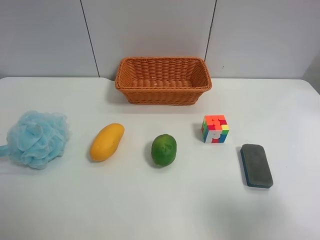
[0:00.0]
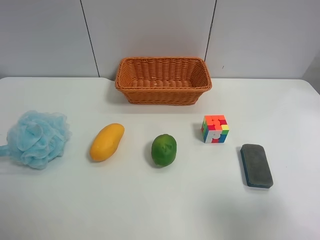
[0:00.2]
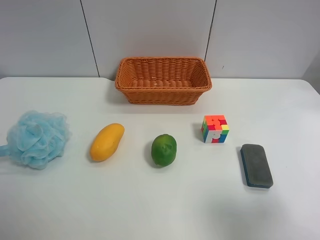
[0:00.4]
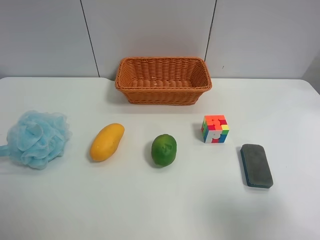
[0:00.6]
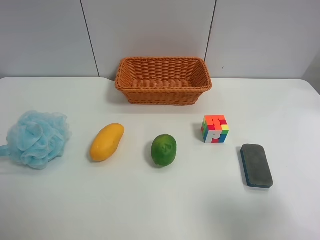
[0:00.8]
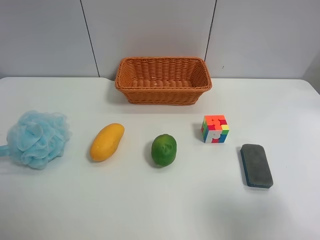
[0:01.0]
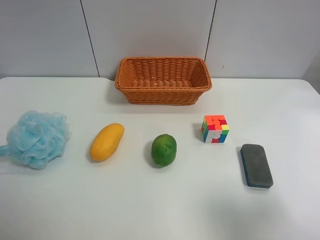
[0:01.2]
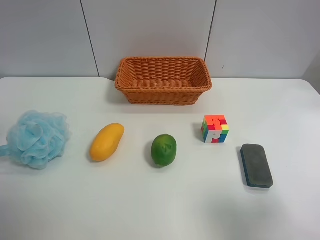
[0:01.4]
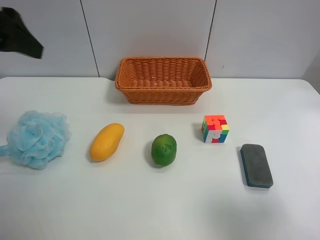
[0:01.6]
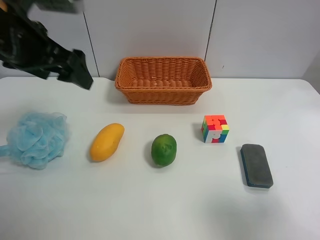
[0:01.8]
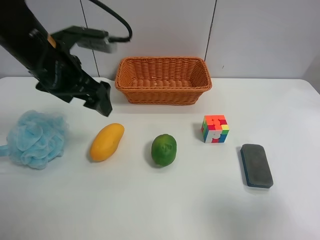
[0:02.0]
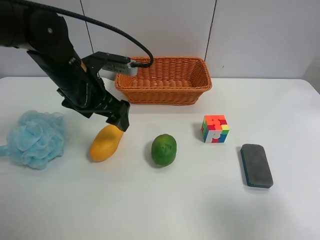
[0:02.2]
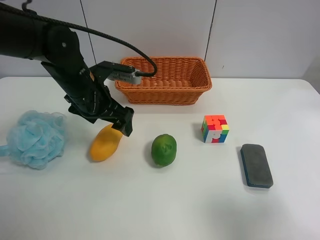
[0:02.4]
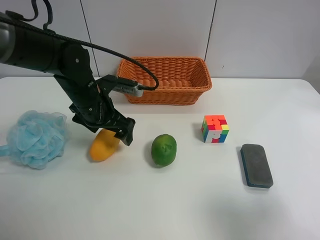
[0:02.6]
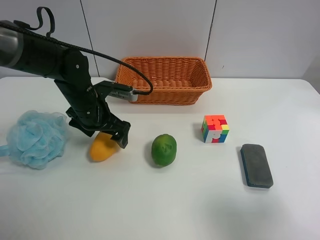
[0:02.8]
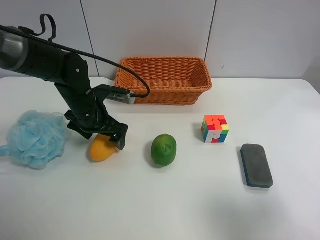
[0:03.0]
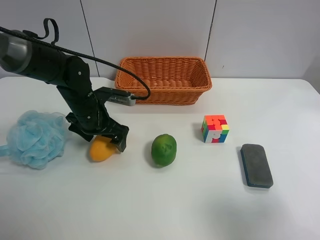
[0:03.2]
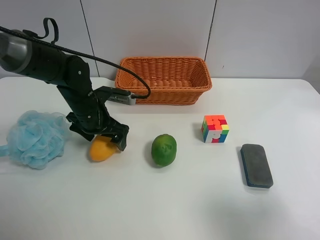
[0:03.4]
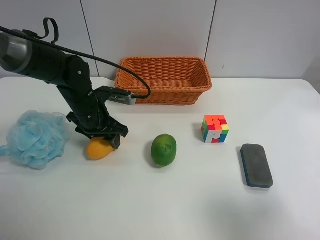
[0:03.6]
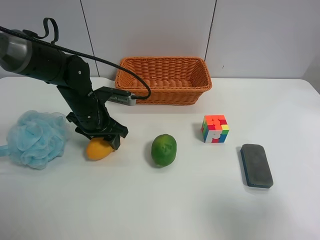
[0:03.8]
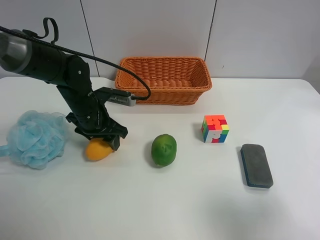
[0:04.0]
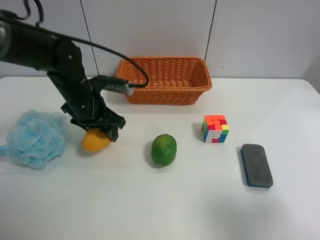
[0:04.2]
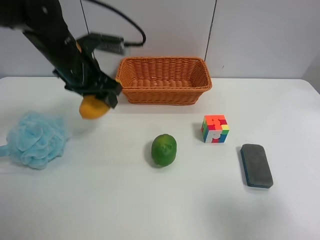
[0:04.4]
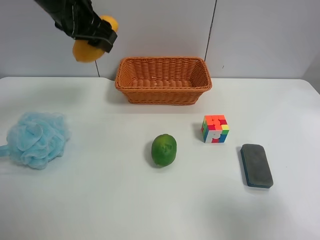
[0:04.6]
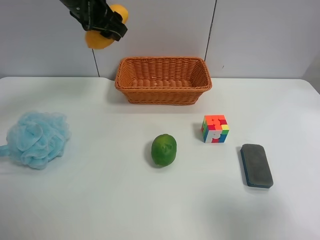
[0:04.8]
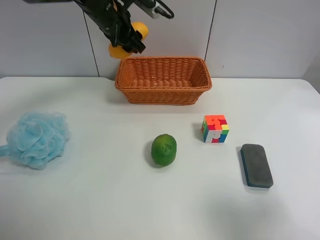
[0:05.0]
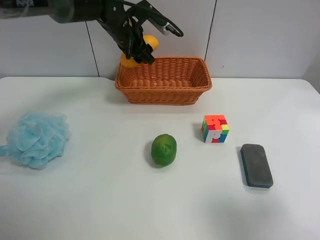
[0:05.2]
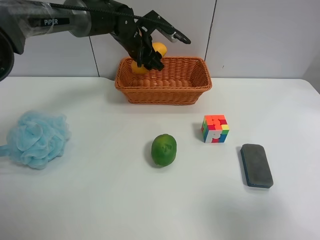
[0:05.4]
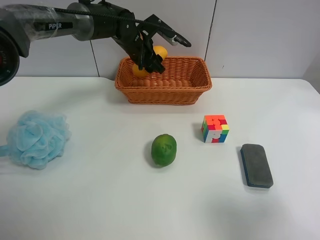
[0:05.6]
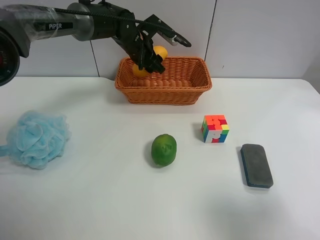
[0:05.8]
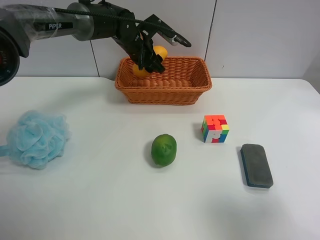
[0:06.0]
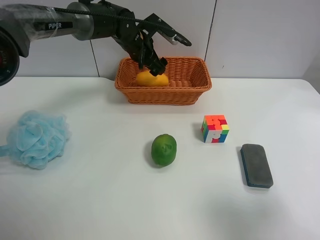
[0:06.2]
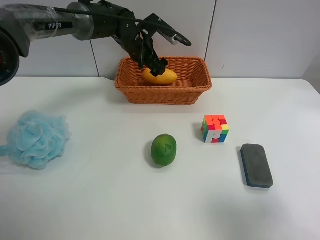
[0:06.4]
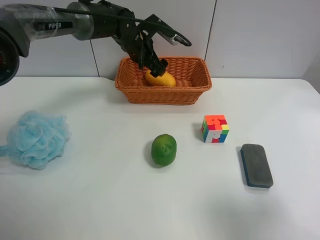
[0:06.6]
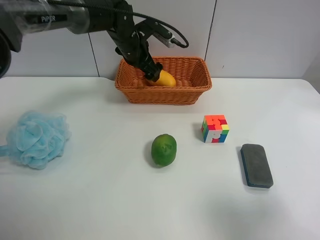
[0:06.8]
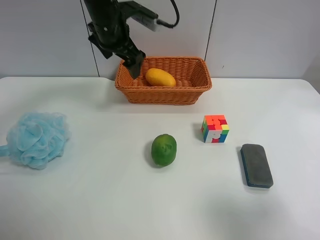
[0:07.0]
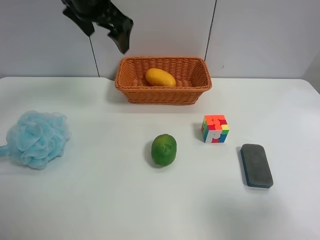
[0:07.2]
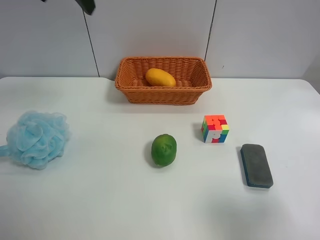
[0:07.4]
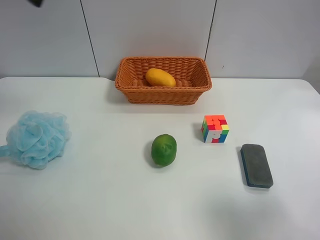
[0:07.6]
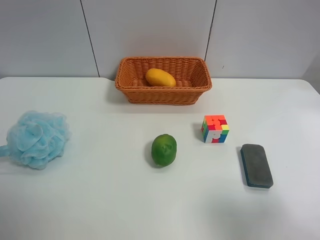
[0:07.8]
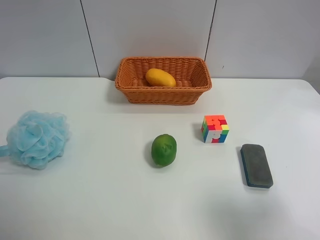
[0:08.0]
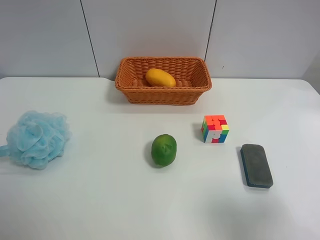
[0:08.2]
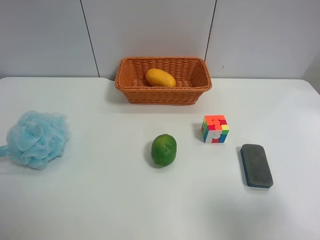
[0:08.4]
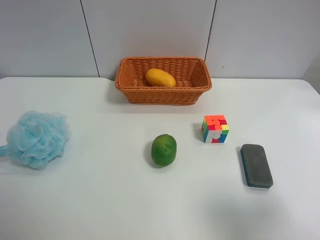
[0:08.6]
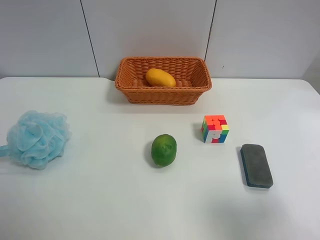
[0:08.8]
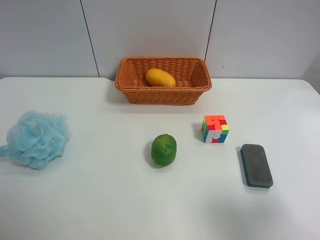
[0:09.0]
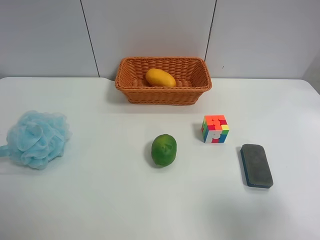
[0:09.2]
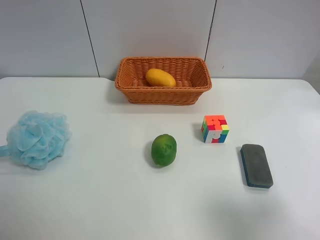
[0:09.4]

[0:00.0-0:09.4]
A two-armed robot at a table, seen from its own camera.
Task of the whole recording: use the left gripper to grab items from the table and place them in the basket.
Step, 0:00.0 to 0:03.6: Grasp the mango with the left gripper.
Step, 0:03.8 to 0:06.4: Place the mango into the basket with the left gripper.
0:00.0 to 0:01.6: The left gripper goes about 25 cm forward.
0:01.6 to 0:03.2: The left gripper goes approximately 25 cm downward.
0:03.2 to 0:04.8: The left gripper is displaced upward and forward by about 20 cm, and closes up.
0:04.8 to 0:06.2: The left gripper shifts approximately 15 cm downward, forward and to the right, and opens its fingers.
0:06.2 to 0:07.8: The left gripper goes about 50 cm backward, to the left and upward.

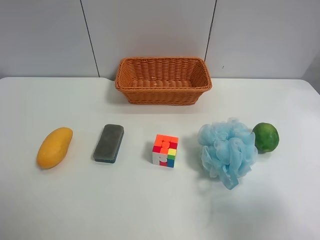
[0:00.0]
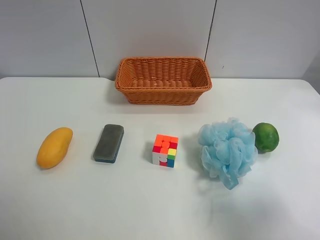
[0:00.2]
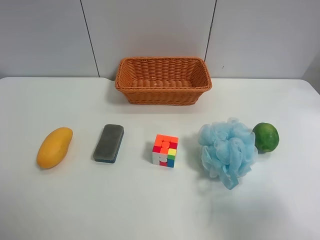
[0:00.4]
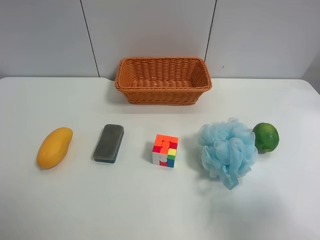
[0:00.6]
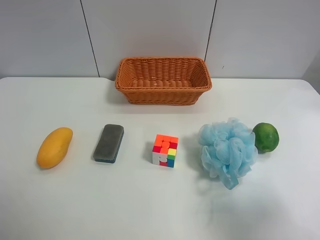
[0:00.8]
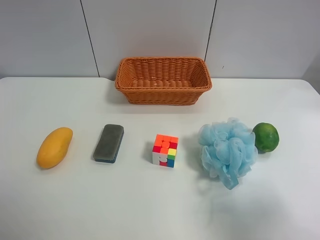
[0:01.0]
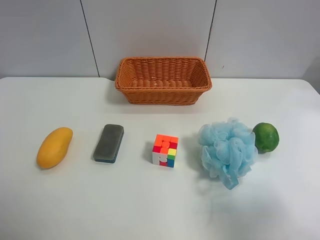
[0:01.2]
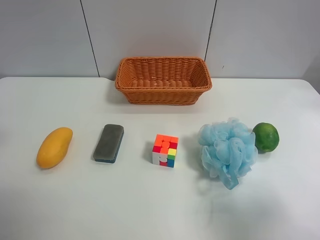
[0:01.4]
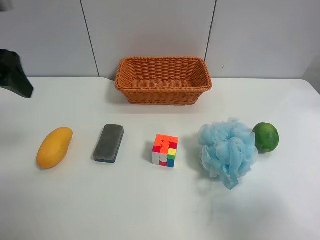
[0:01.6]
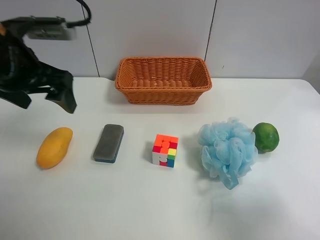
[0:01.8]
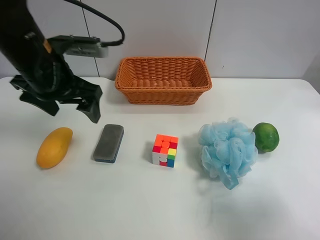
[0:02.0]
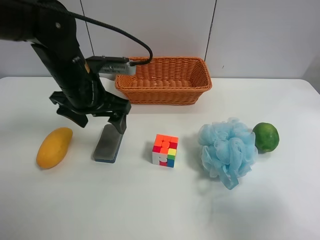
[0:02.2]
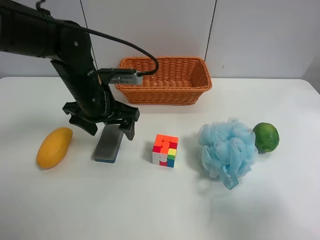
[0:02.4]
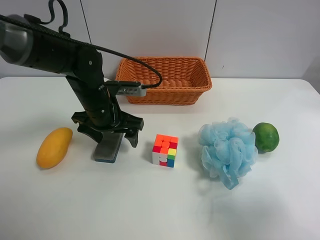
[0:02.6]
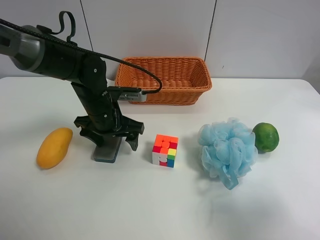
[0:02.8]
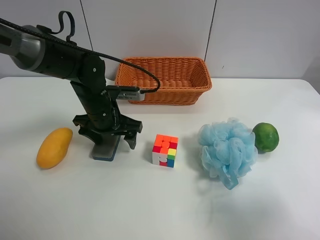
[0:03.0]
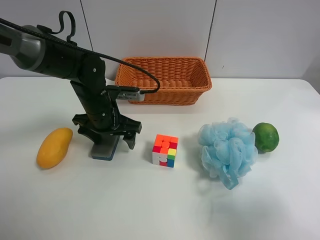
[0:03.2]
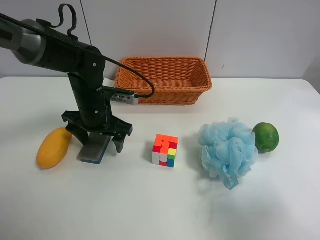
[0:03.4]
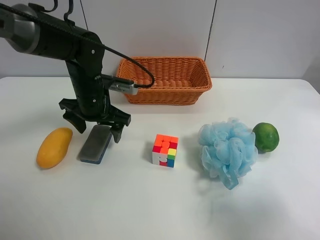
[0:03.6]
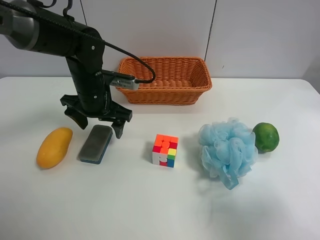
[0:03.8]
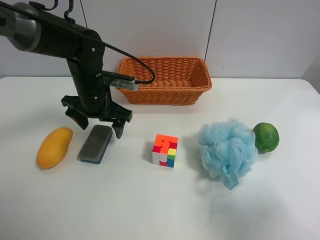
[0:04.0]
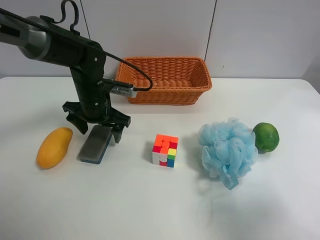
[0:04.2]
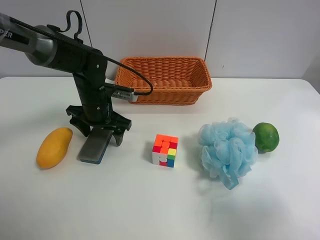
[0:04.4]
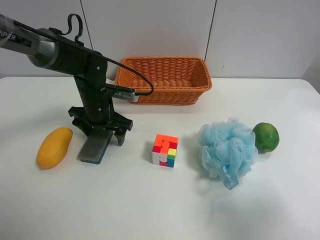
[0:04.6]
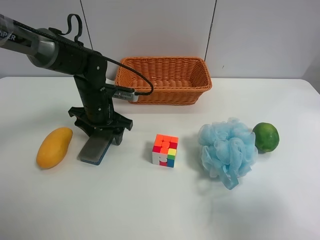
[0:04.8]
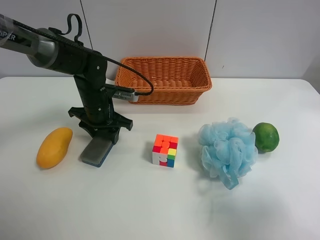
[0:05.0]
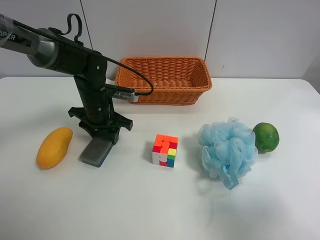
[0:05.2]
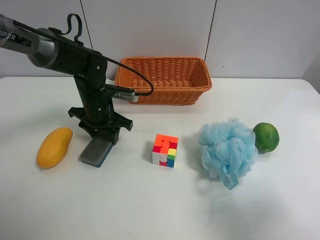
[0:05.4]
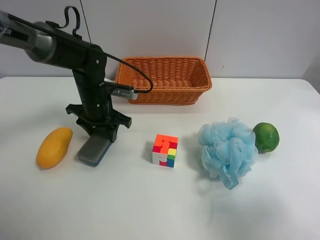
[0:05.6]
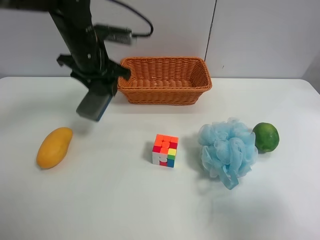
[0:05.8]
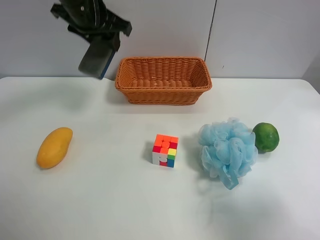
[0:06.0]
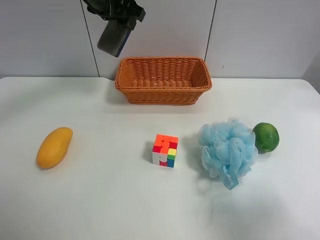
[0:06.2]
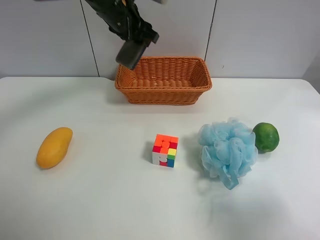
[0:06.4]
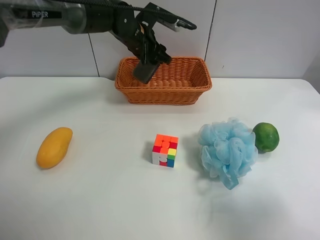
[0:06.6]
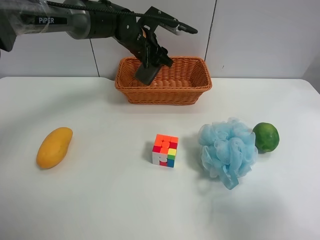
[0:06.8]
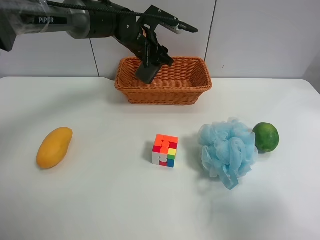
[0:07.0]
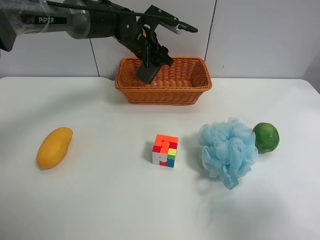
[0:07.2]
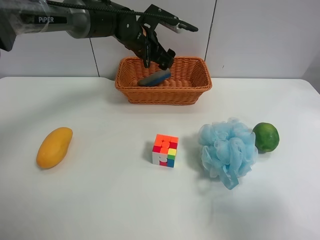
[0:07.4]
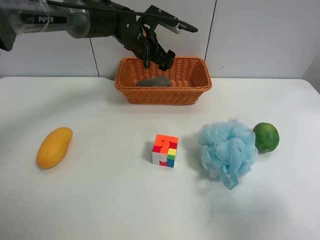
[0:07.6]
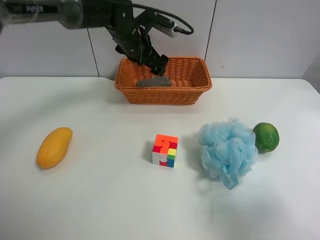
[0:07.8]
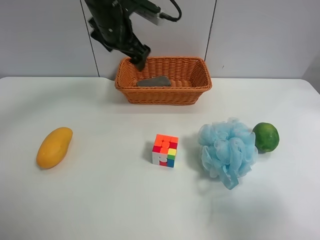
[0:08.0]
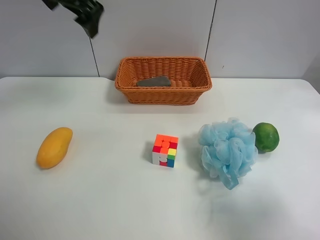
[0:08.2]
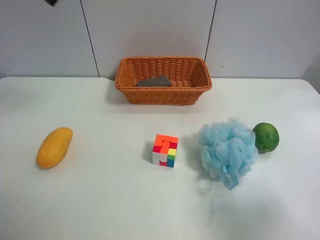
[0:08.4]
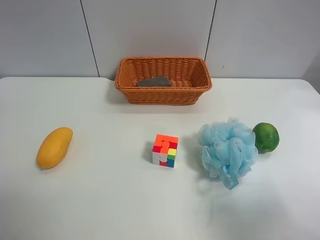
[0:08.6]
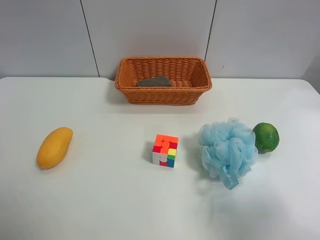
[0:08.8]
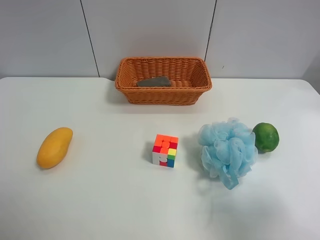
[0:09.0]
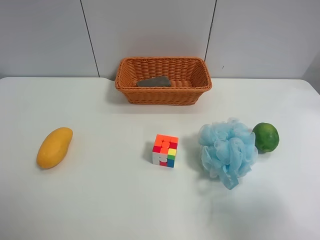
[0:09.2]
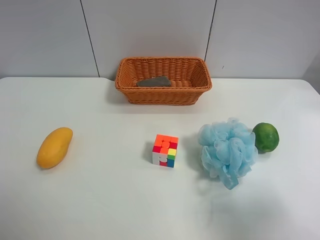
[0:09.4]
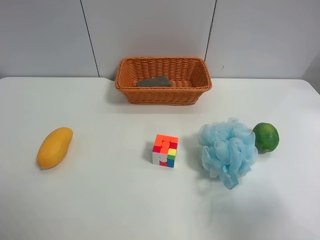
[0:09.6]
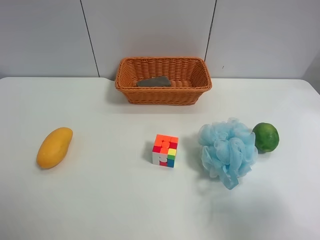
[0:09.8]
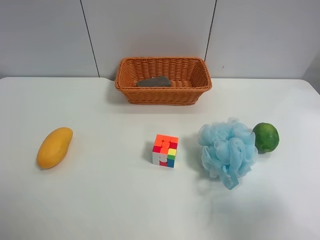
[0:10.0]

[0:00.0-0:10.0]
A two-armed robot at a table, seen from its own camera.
Task of the whole recording: use the left gripper to grab items from the table and place them in the basket.
Step, 0:00.0 to 0:05.2: Grasp the chalkboard eraser with the left gripper.
Step, 0:05.4 to 0:07.6: Place the chalkboard eraser into the basket with the left gripper.
0:01.4 to 0:02.8: The left gripper shifts approximately 30 cm downward, to the right and forward.
0:02.8 to 0:04.2: The grippers stay close to where they were, moving slightly.
0:04.2 to 0:05.8: The left gripper shifts approximately 15 cm upward, and closes its fingers.
0:05.8 to 0:07.2: The left gripper shifts approximately 15 cm forward, to the right and downward.
0:07.2 to 0:08.6: The left gripper is displaced backward, upward and to the left by some 40 cm, and opens up.

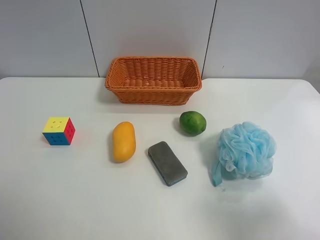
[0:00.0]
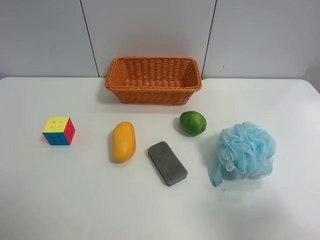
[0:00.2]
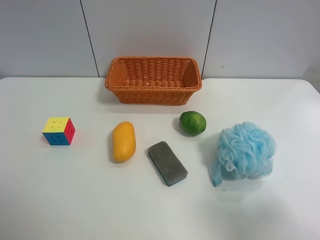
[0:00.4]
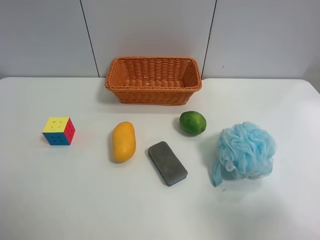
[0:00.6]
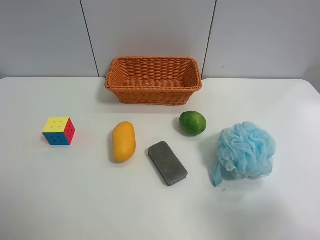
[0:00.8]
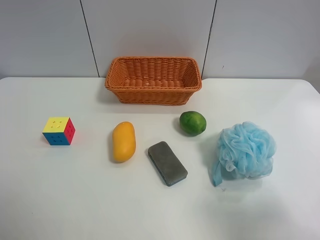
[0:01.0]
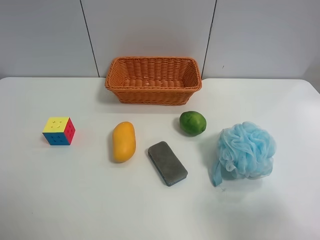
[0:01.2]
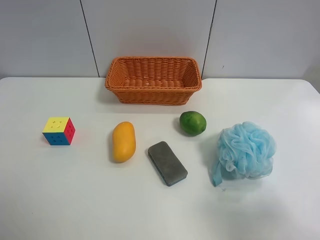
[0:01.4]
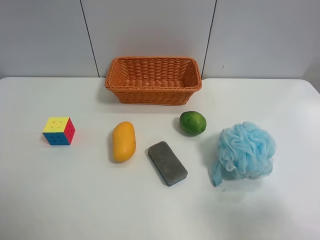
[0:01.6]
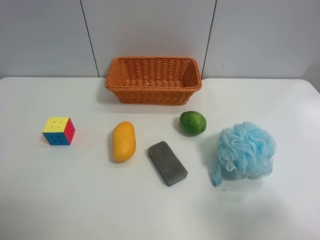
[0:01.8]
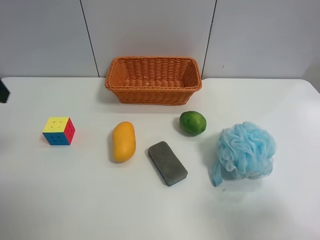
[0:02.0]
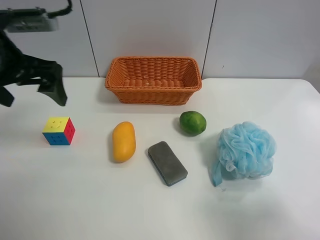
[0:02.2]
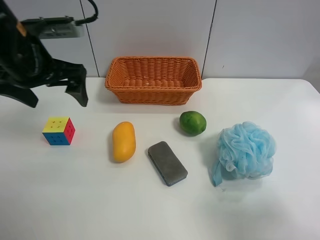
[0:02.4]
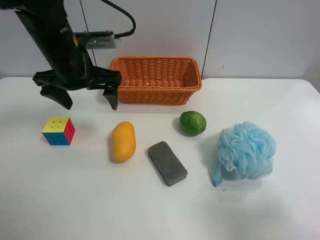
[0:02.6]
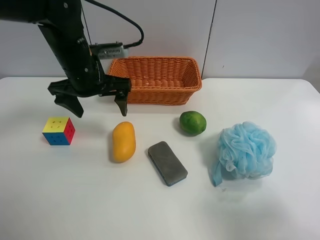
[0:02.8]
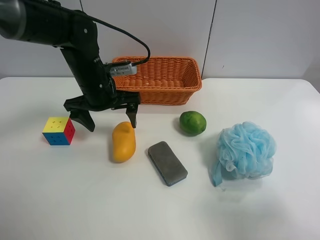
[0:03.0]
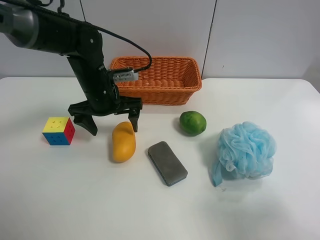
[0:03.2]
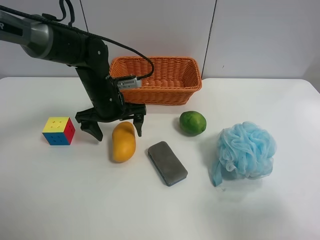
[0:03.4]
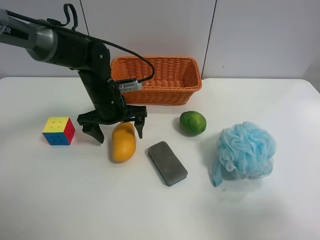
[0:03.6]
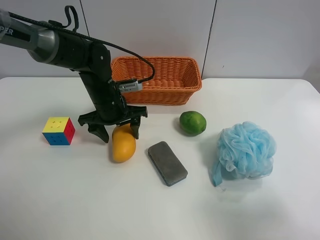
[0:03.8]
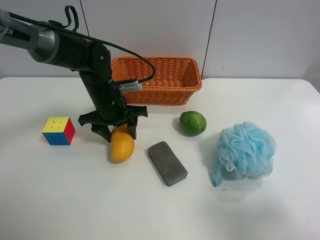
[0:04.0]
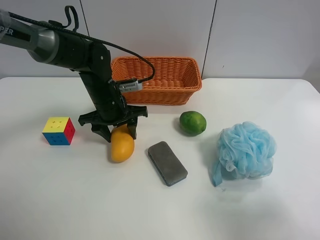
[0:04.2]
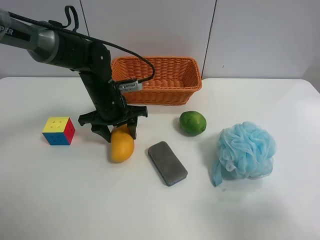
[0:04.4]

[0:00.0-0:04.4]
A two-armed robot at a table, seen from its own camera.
Task of the whole recording: use the left gripper to grab items from the table and place them in the basket.
Step, 0:00.0 to 0:04.0: Grasp the mango with the left gripper.
0:01.4 to 0:03.0: The left gripper heads forward, to the right and downward, covering approximately 40 cm.
0:03.0 to 0:04.4: The left gripper closes up.
